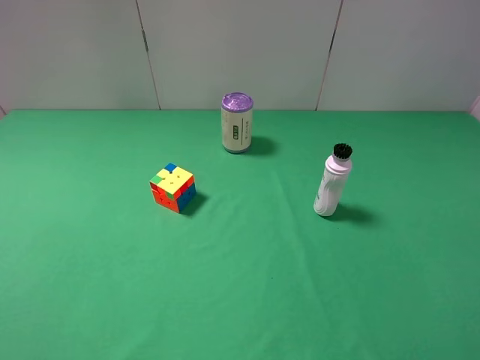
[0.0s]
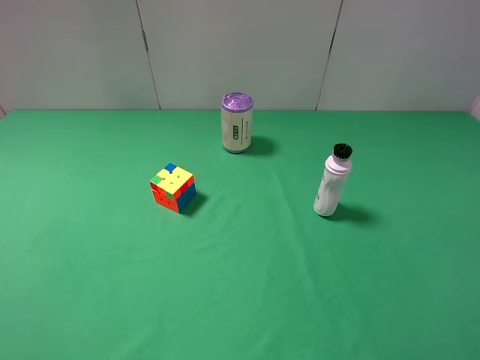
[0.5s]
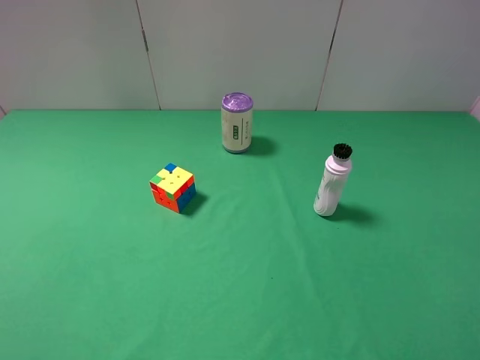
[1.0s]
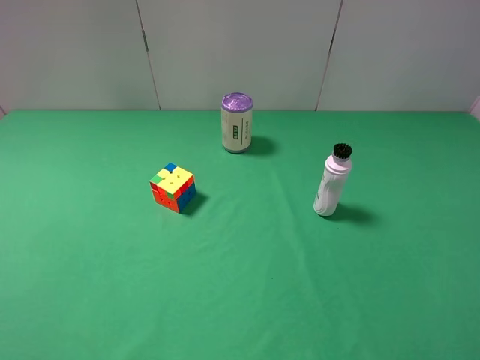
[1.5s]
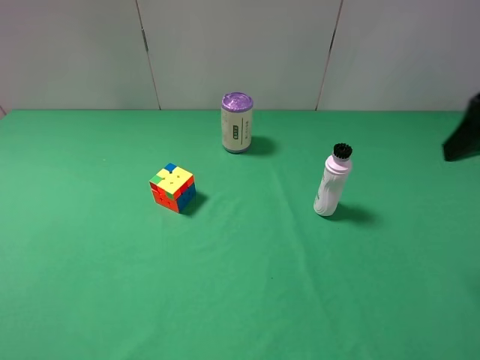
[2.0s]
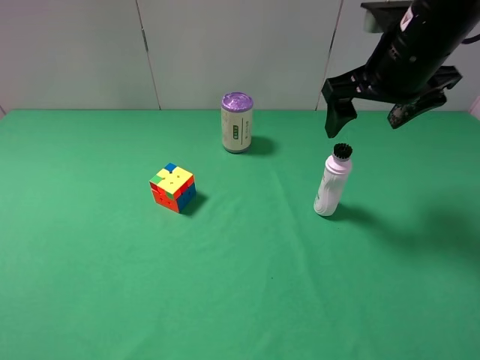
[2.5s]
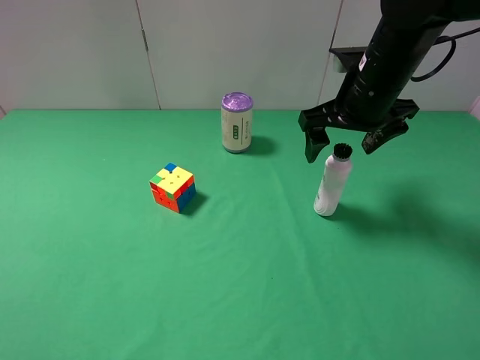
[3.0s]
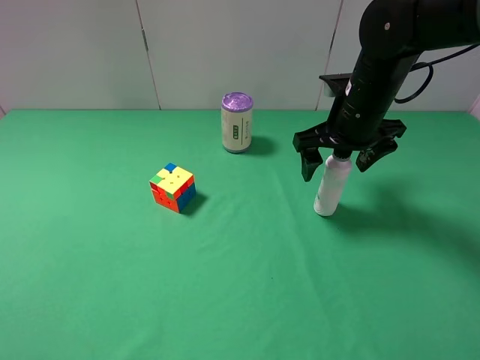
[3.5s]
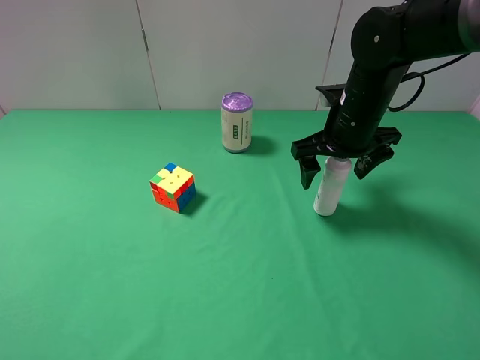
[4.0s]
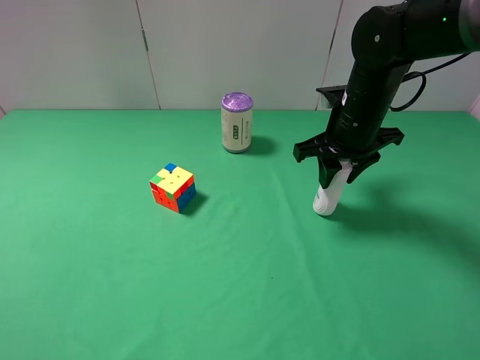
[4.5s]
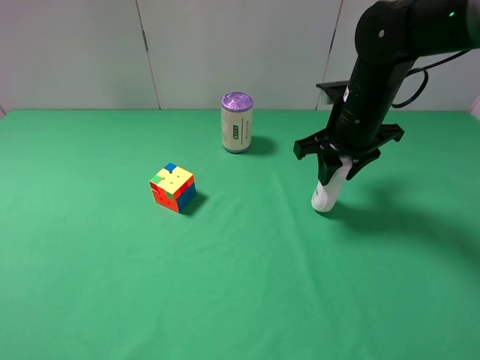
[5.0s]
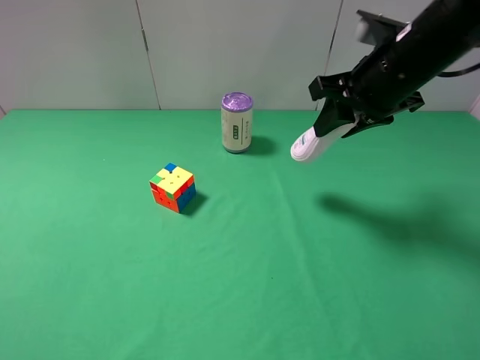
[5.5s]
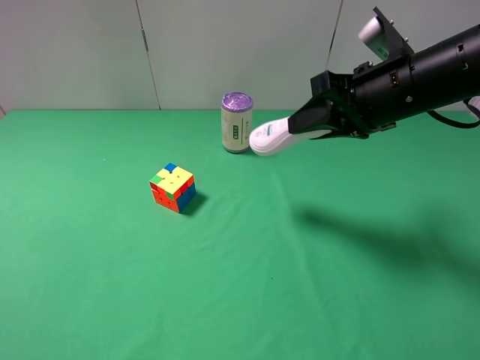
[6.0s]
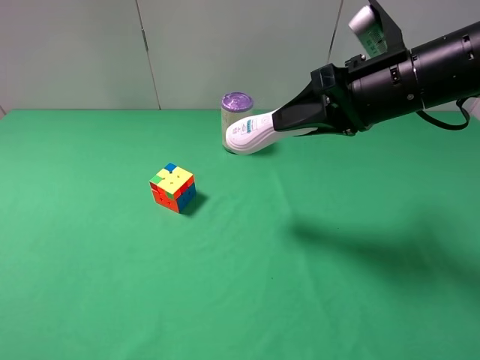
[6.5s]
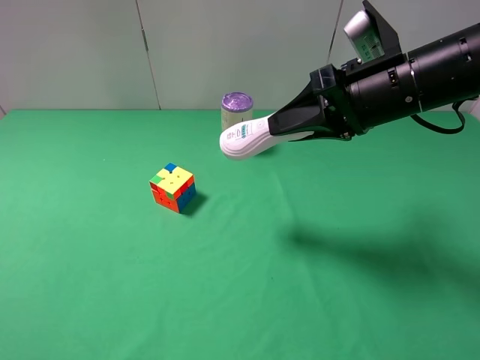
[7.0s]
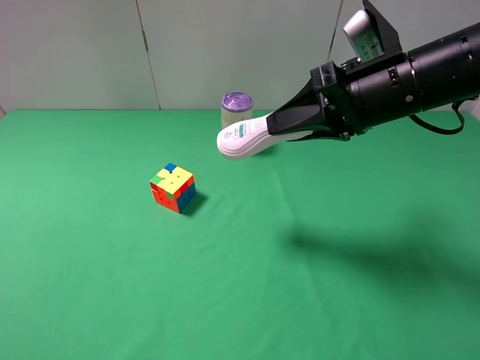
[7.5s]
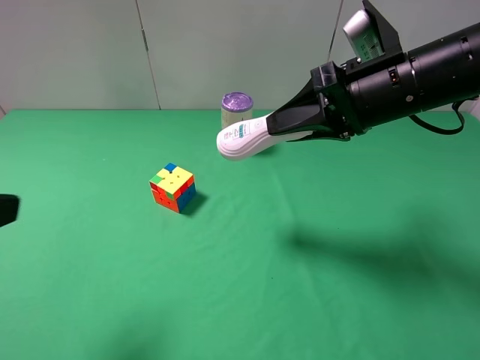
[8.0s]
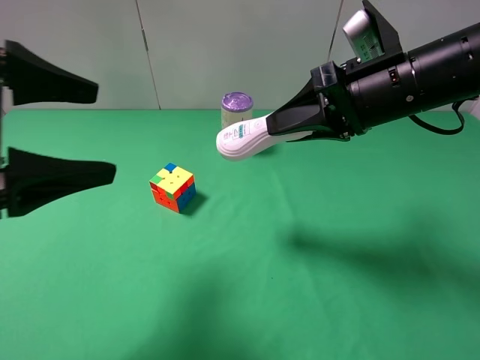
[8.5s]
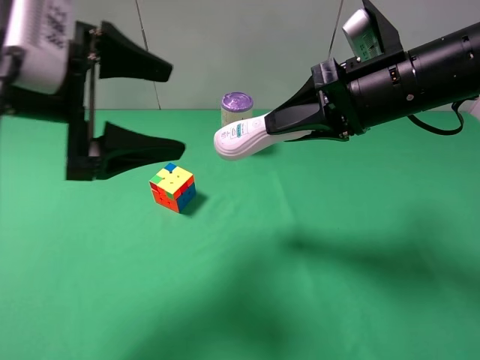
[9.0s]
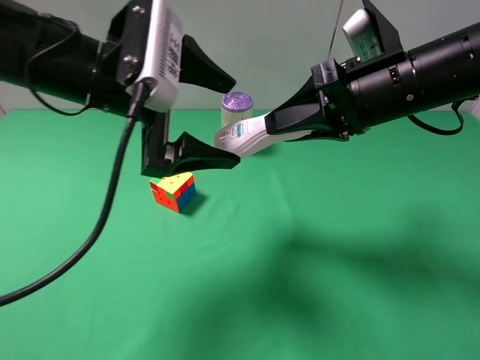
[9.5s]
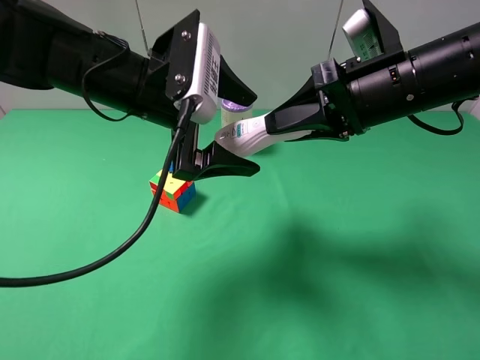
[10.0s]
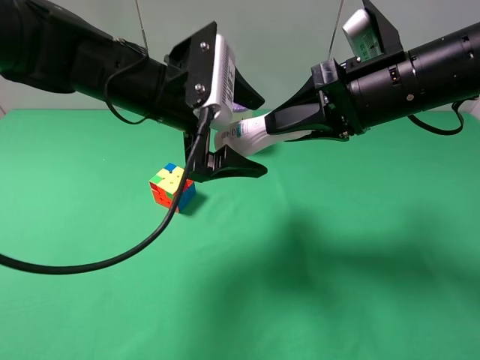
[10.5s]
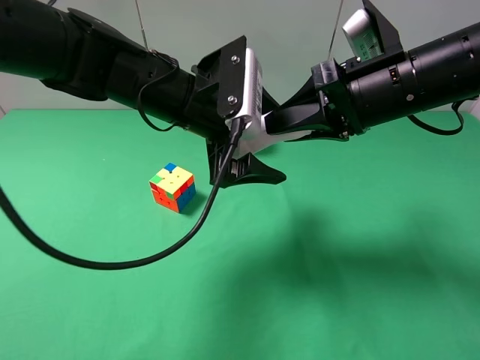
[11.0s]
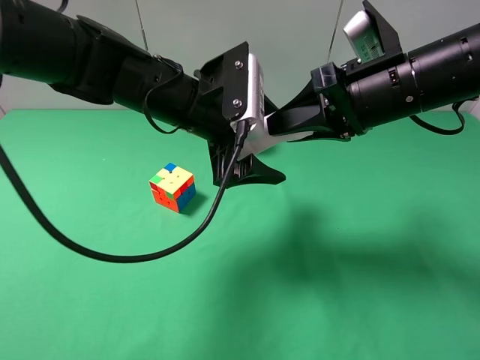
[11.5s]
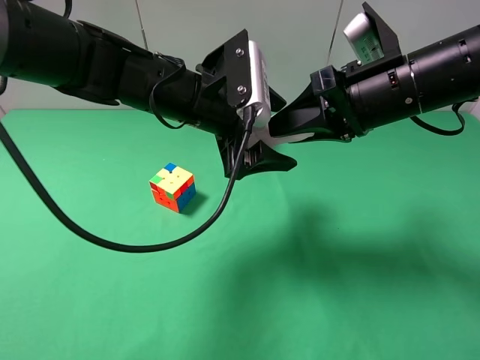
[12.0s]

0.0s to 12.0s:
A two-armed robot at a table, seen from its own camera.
Task of the whole recording: use the right gripper to pick up the item and transfer it from the right gripper to the left gripper.
0.0s to 2.0s: The right gripper shifts approximately 20 cm forward.
2.0s to 4.0s: The right gripper heads forward, downward and to the left, covering some 25 cm.
4.0s to 6.0s: The right gripper travels upward and backward by approximately 10 cm, and closes up.
6.0s to 8.0s: The left gripper is displaced forward by some 10 cm.
8.0s to 10.0s: The left gripper shifts about 25 cm forward and to the right.
10.0s to 12.0s: The left gripper shifts by some 5 cm.

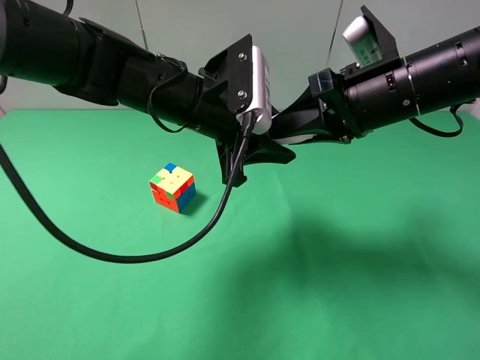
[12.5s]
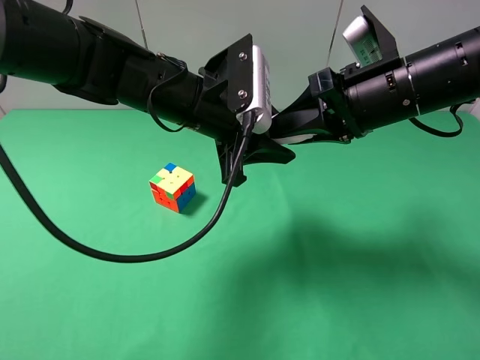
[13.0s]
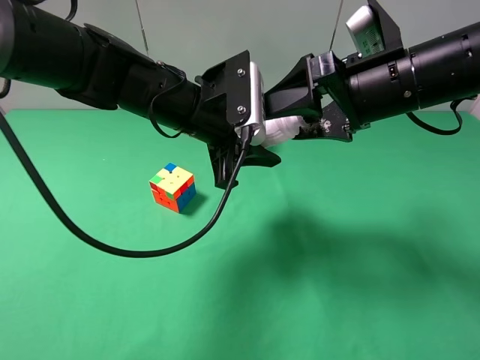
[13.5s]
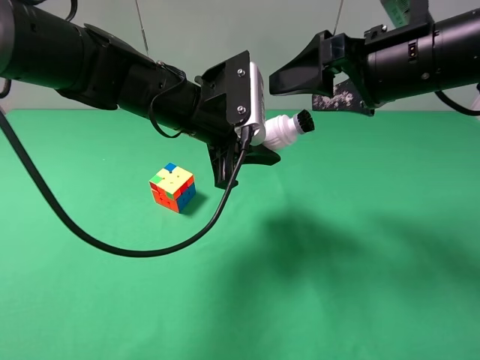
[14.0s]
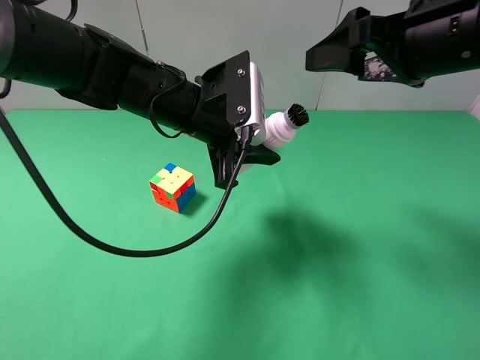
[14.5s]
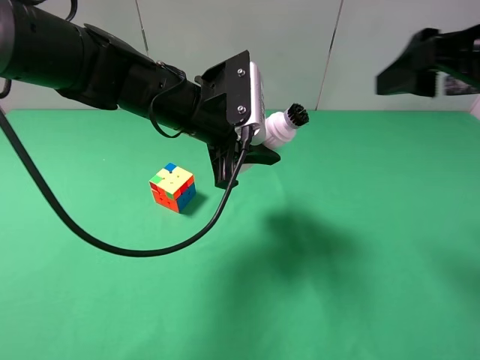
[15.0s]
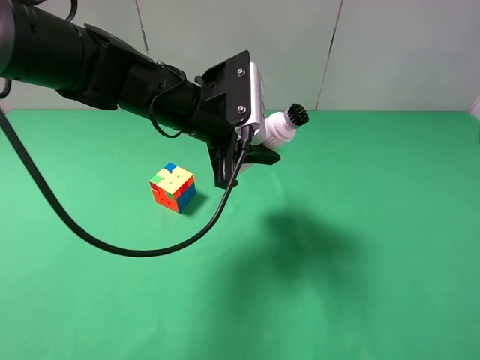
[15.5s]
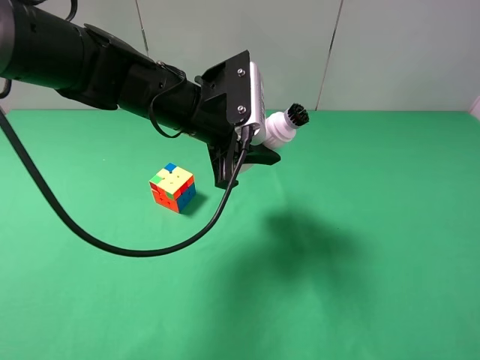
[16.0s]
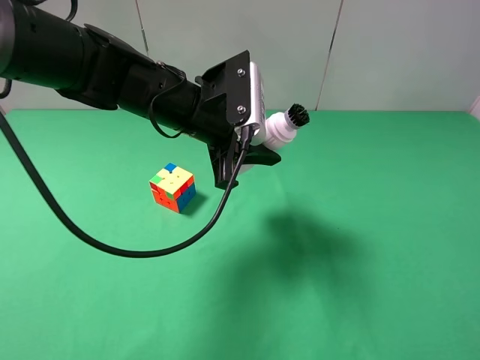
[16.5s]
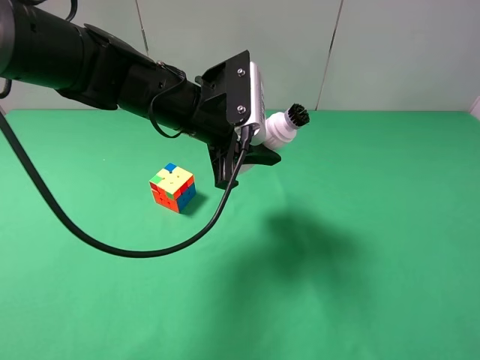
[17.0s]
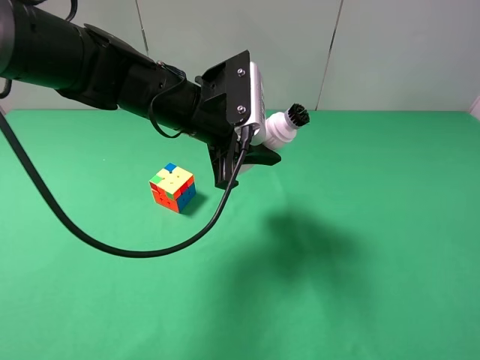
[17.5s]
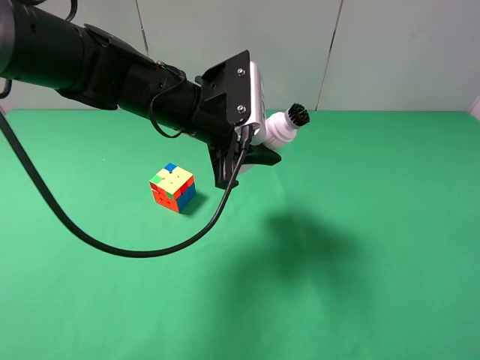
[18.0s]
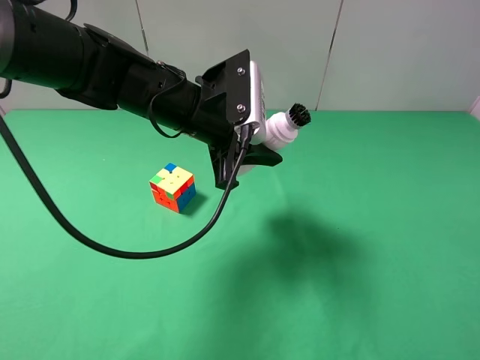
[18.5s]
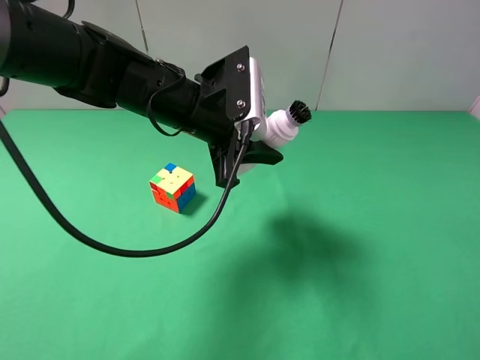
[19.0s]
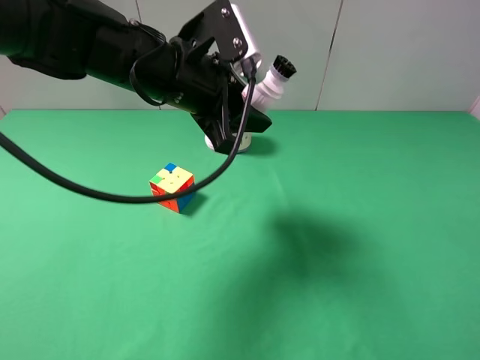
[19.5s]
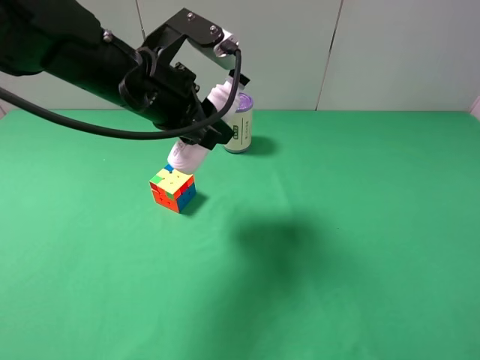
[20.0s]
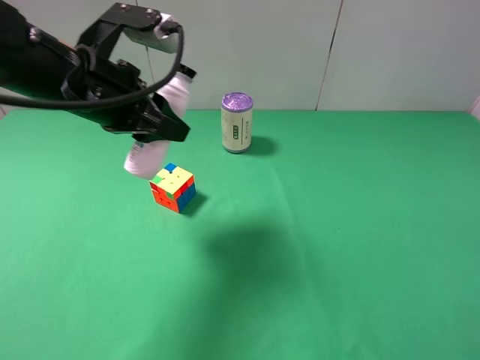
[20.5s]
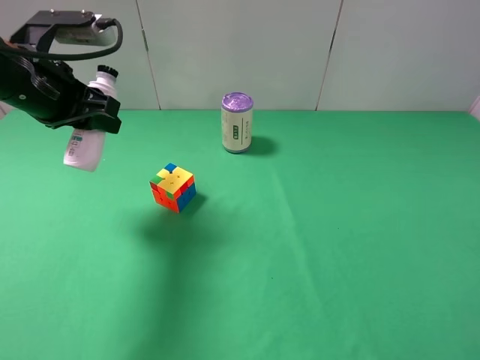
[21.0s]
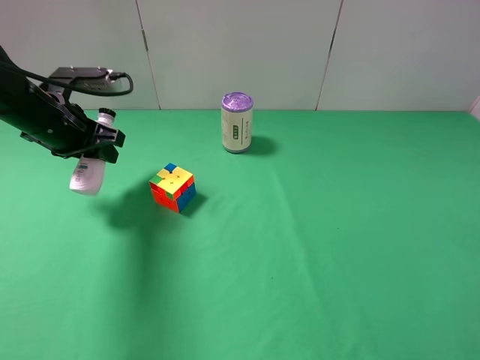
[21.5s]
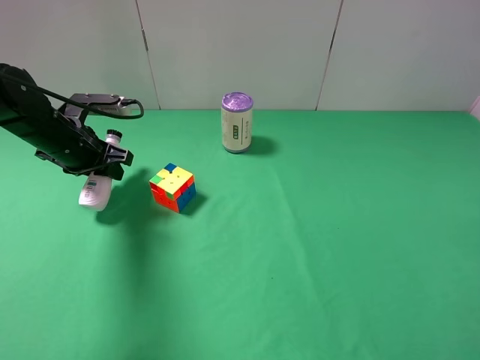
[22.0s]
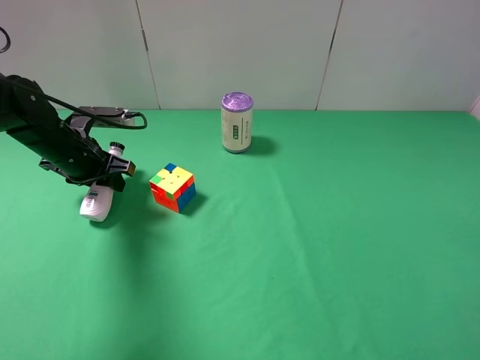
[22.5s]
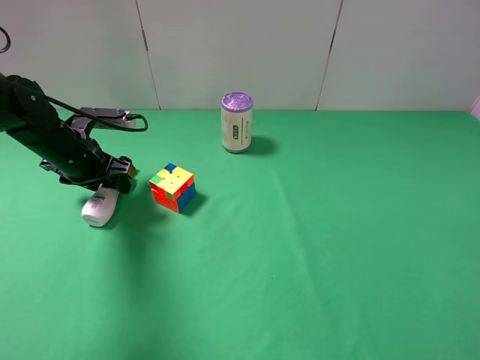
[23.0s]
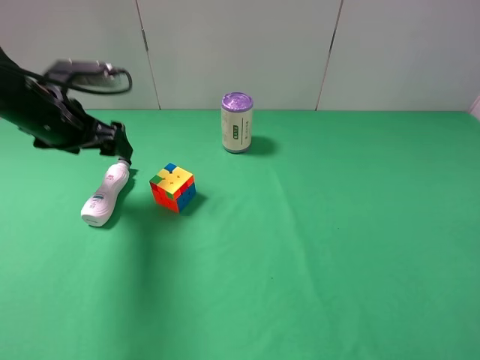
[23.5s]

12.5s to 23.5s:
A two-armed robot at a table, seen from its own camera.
Task of the whole recording: use the right gripper to pick up the item and transfer it from the right gripper to the left gripper.
Step, 13.5s to 23.0s: The left gripper places shampoo on the left side of the table.
12.5s to 14.5s: The right gripper heads upward, covering roughly 5 cm, and opens its fingers.
14.5s to 16.0s: The right gripper is displaced backward and to the right by about 25 cm.
18.0s to 20.0s: The left gripper shifts by about 5 cm.
20.0s to 21.5s: The left gripper travels to the left and downward by approximately 15 cm.
21.5s to 23.5s: The left gripper opens.

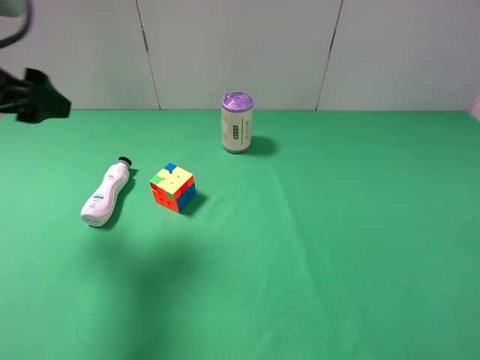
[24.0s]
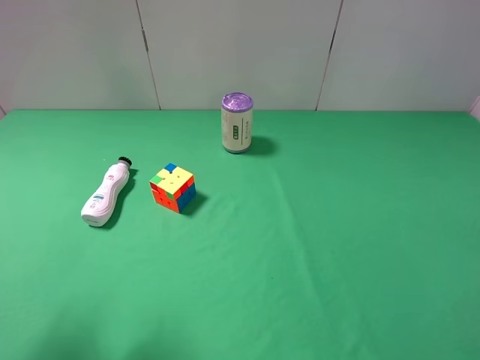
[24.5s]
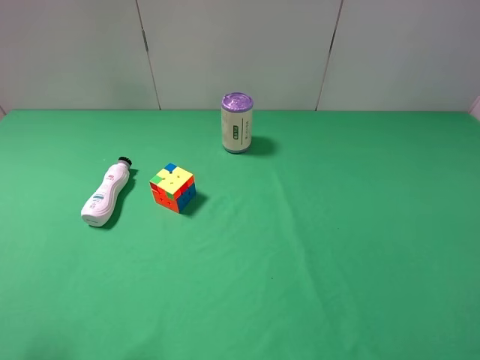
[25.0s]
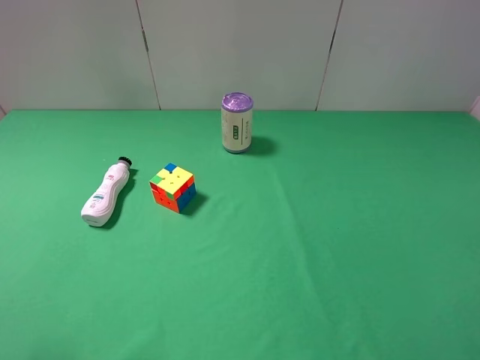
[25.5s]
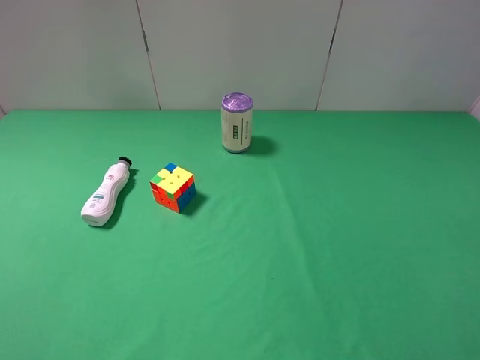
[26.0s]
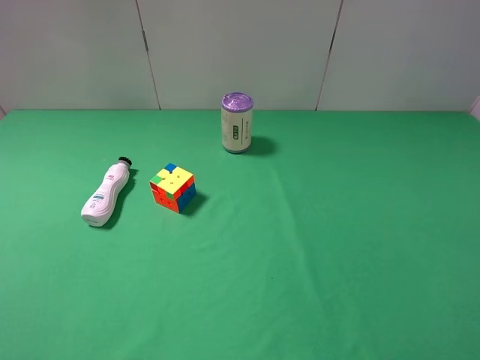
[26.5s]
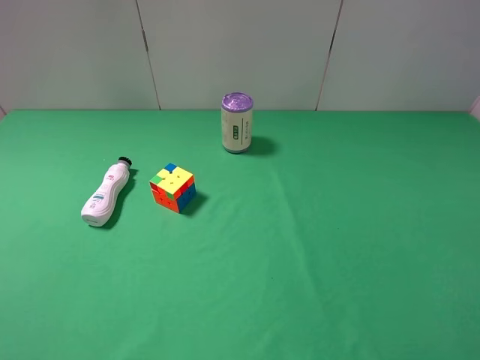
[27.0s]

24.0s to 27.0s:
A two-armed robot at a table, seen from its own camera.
Task of the whole recording: use the right gripper to pick up the item and transfer it from the right gripper to the left gripper.
24.0s to 25.5s: The left gripper moves backward, about 20 cm.
